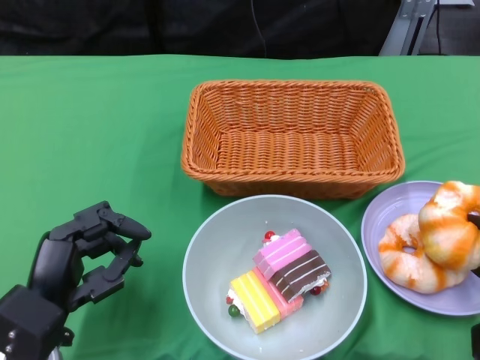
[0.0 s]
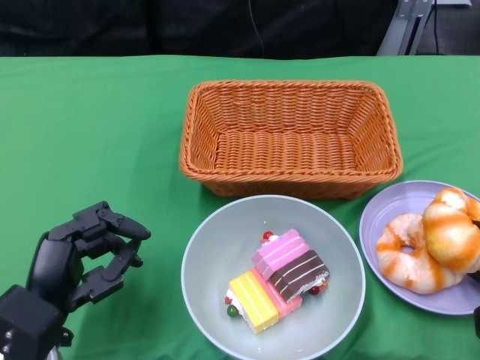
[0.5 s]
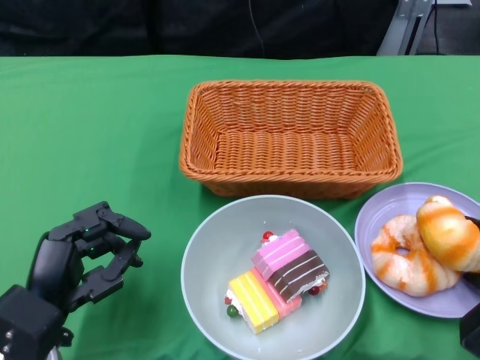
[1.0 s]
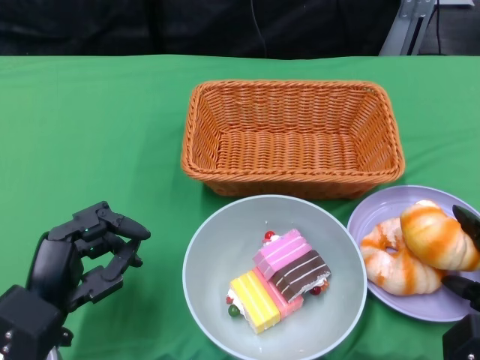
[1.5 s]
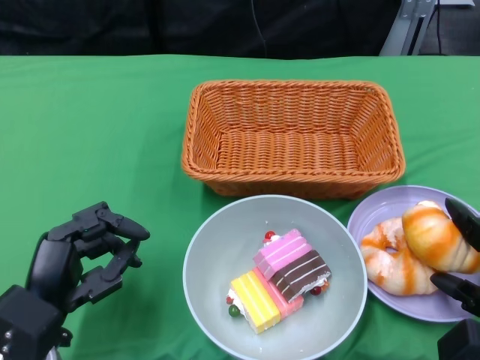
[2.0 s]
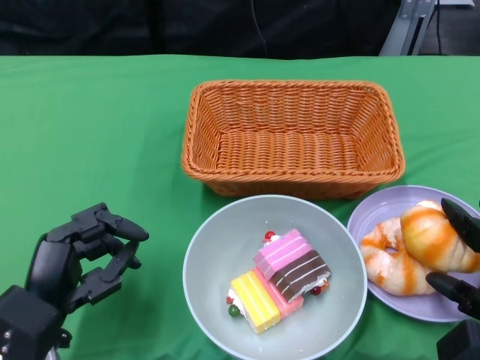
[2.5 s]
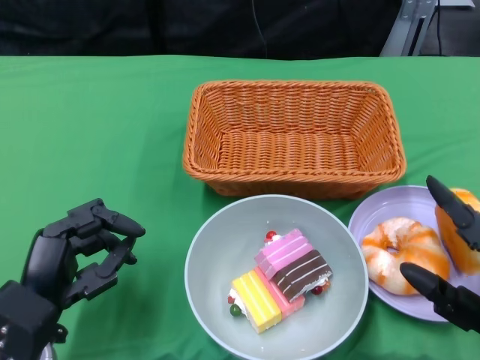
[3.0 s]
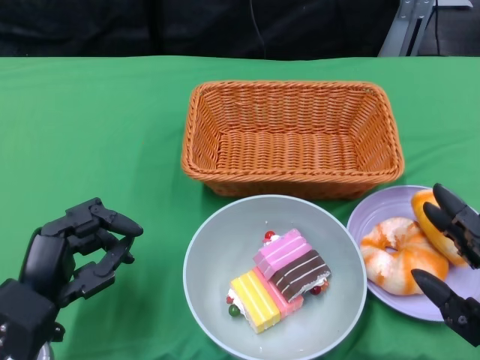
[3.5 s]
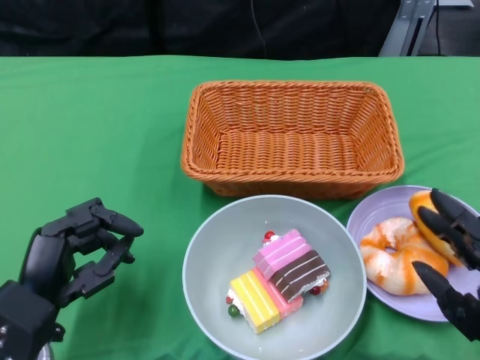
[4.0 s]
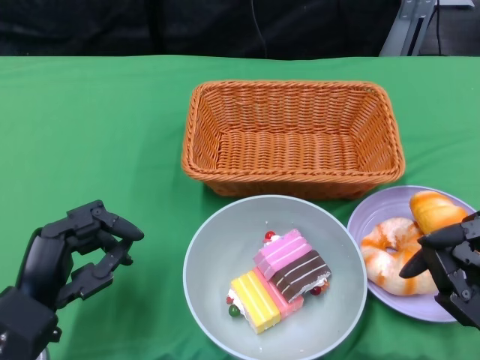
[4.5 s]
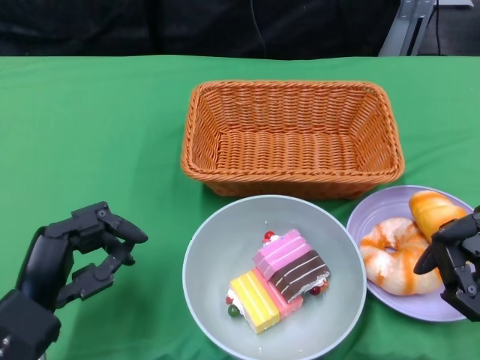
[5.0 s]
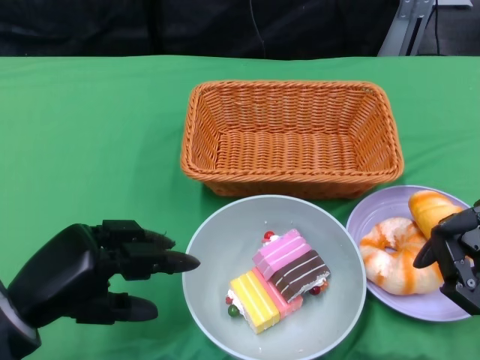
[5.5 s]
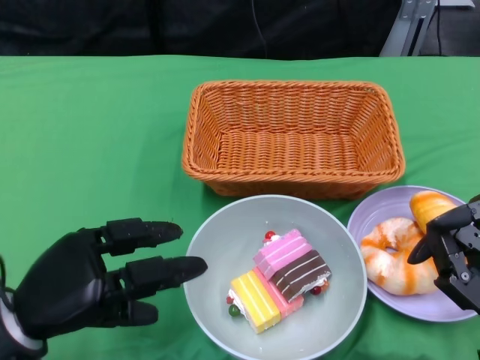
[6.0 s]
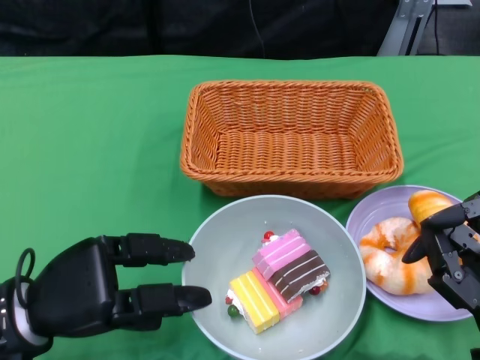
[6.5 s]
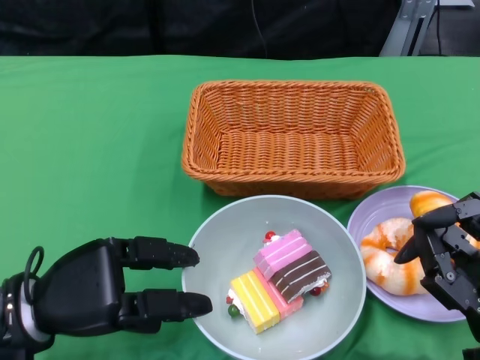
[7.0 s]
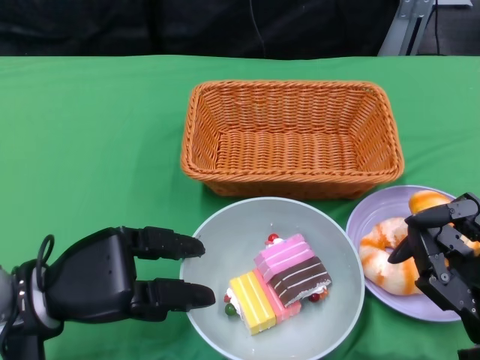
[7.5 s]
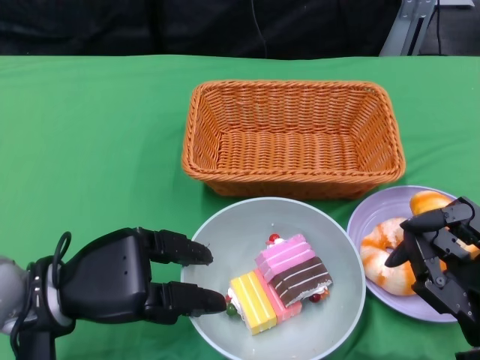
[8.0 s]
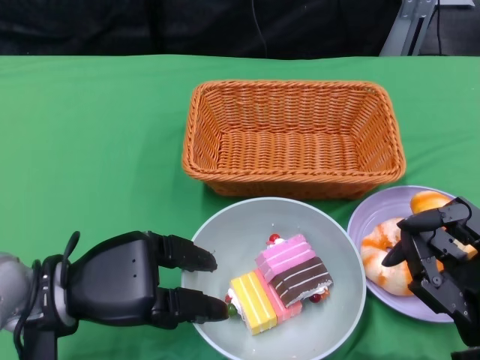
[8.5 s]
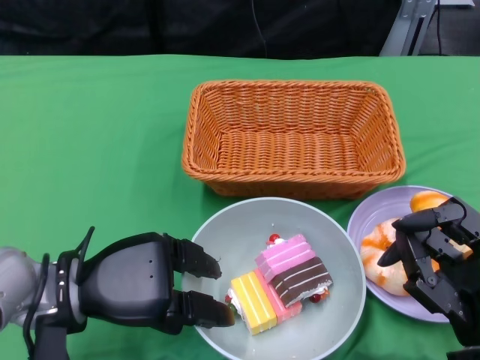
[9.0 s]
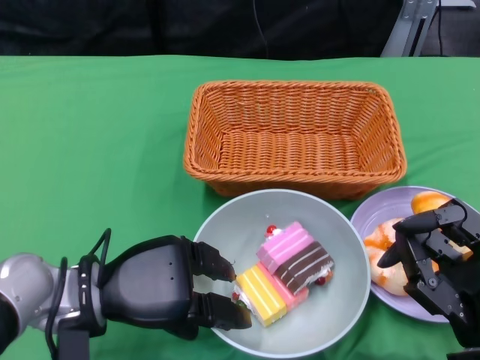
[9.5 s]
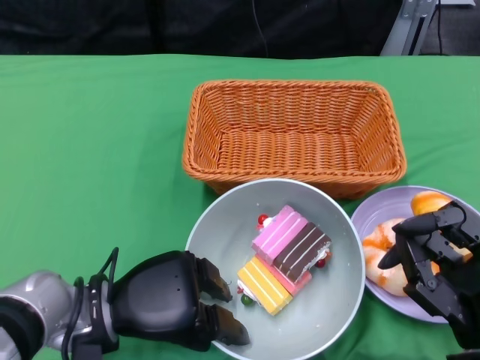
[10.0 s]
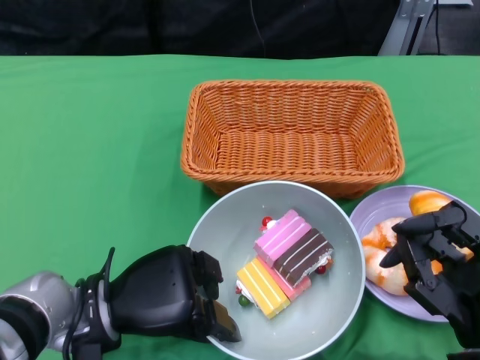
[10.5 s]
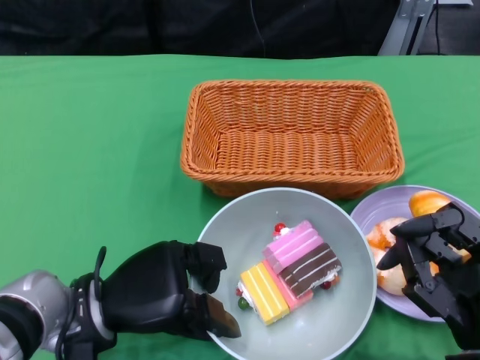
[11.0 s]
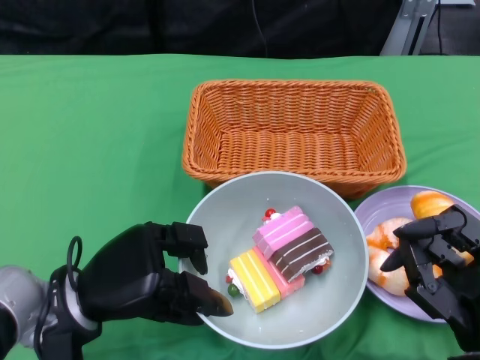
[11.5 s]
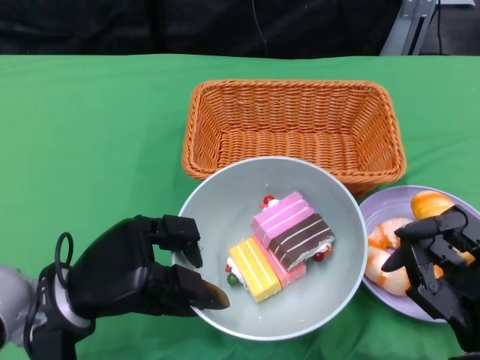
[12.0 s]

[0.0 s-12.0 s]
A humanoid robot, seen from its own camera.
Step, 0.0 to 4.5 s: Pick up the bread with the right gripper and place it on the plate.
Step, 5.0 to 11.5 s: Grasp the bowl with the left gripper.
0.0 to 2.0 s: The hands stay close to where they were, moving slightly.
2.0 to 4.0 s: The right hand changes place by approximately 5 cm.

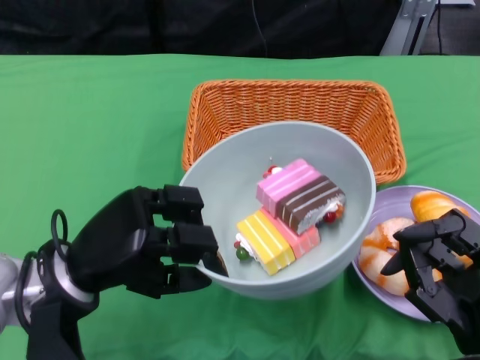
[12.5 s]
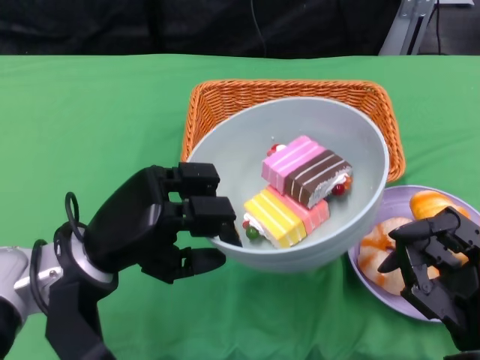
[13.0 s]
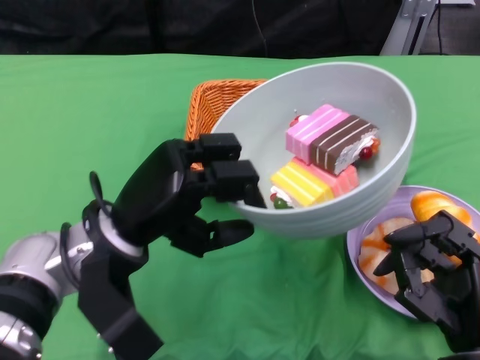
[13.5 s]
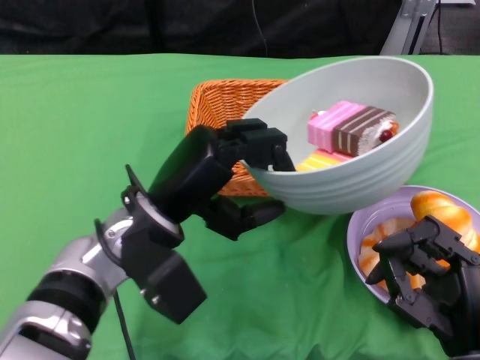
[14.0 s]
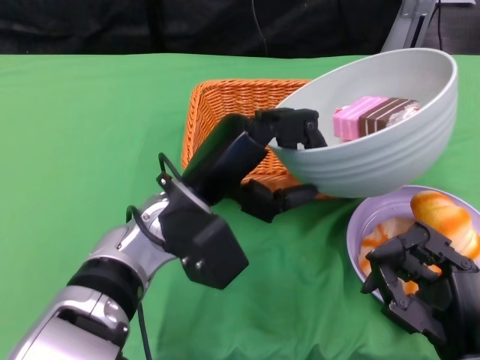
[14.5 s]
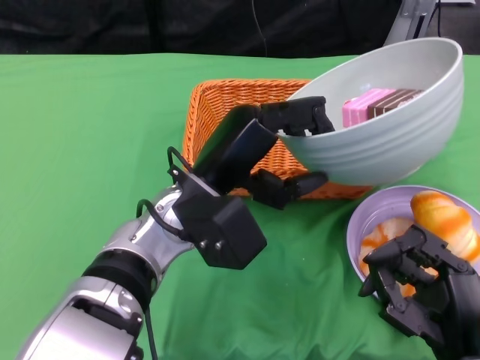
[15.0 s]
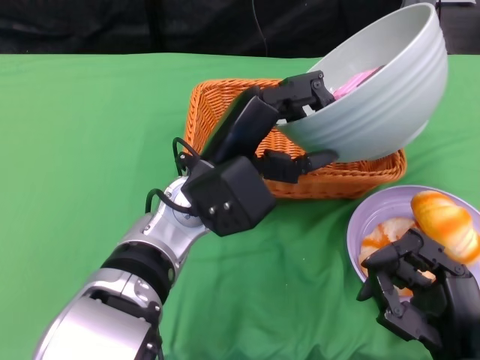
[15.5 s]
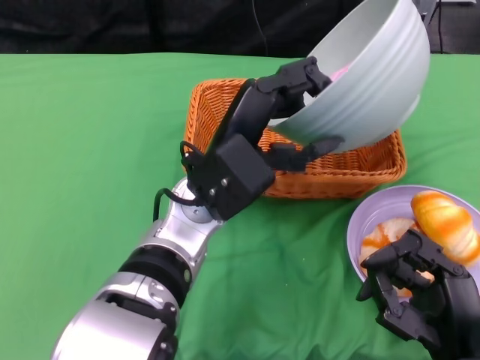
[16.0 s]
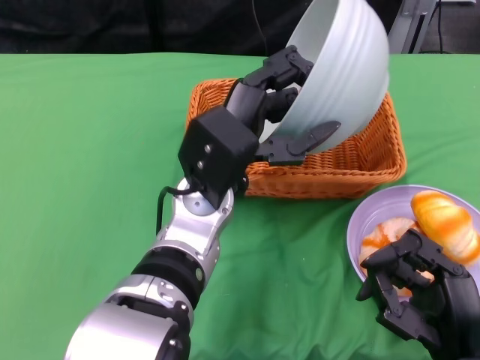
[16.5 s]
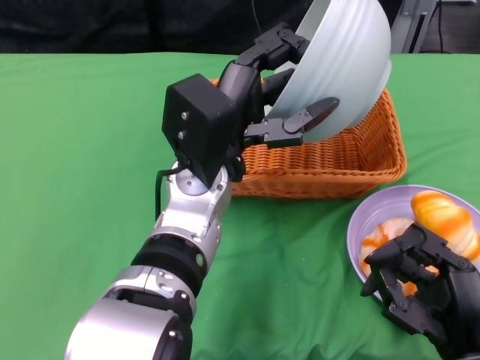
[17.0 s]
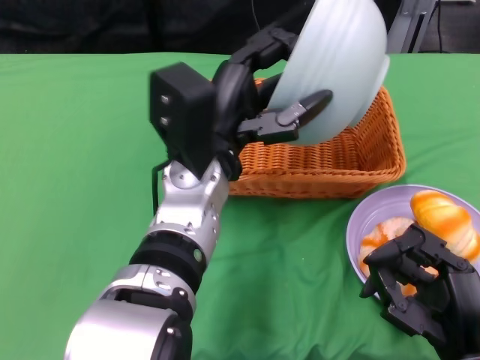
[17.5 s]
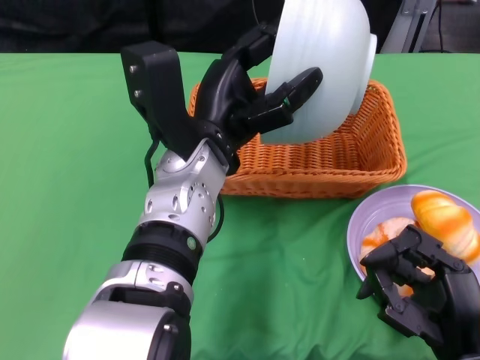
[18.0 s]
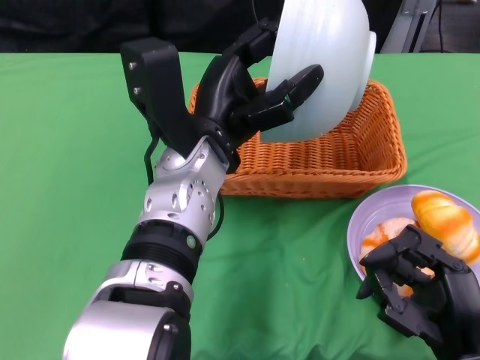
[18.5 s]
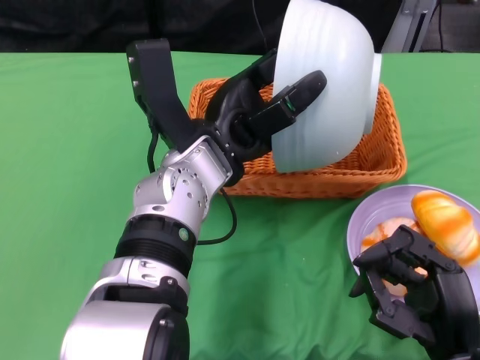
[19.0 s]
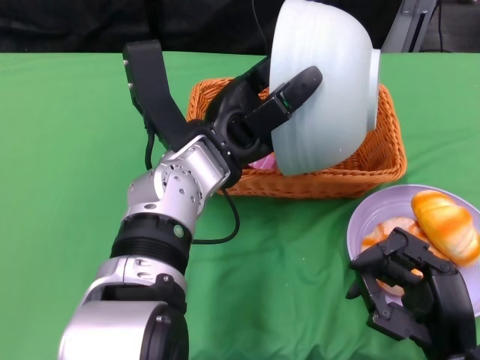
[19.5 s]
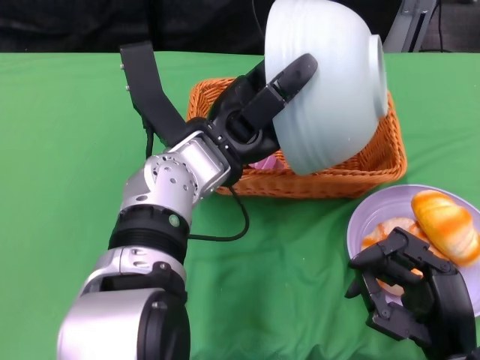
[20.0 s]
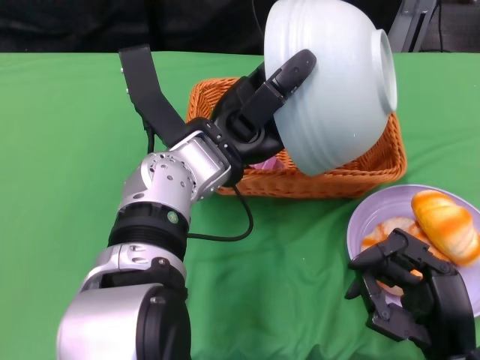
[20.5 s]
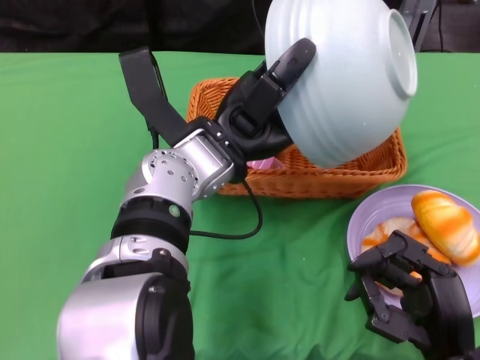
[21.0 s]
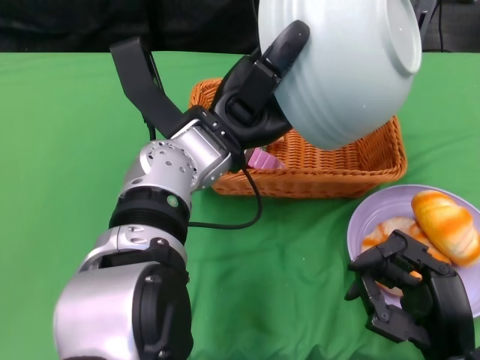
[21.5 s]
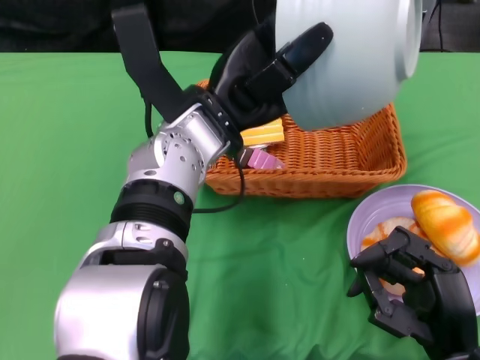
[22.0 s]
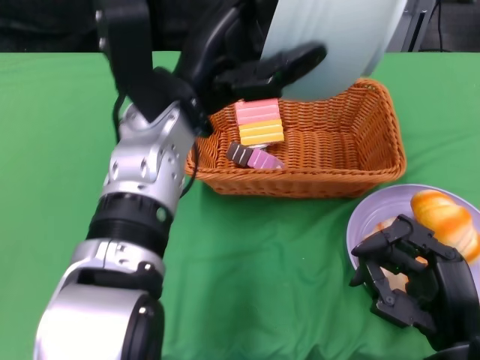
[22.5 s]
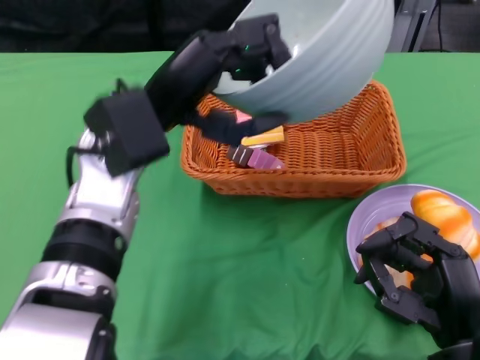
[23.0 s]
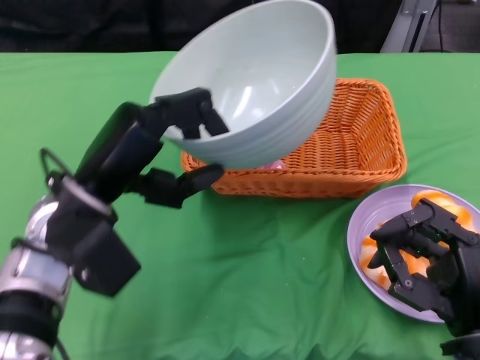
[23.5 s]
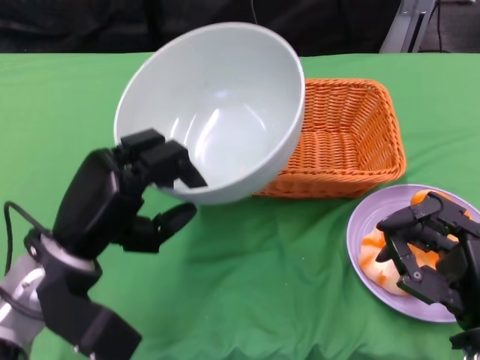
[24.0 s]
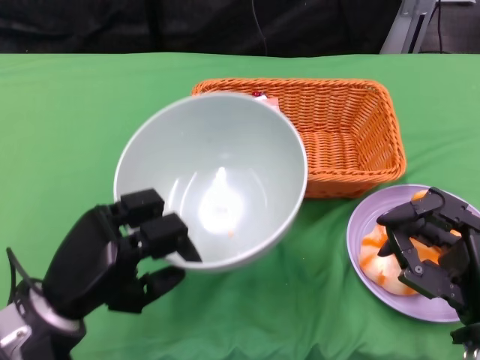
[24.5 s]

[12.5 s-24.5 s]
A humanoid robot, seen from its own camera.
Step, 12.5 to 23.0 s: Pour the cake into the basket with the left gripper.
12.5 to 14.5 s: The left hand moves to the right, some 10 cm.
20.5 to 22.5 s: The left hand ends up roughly 5 cm from where it was.
22.5 to 24.5 s: The left hand moves downward, to the left and backward, approximately 20 cm.

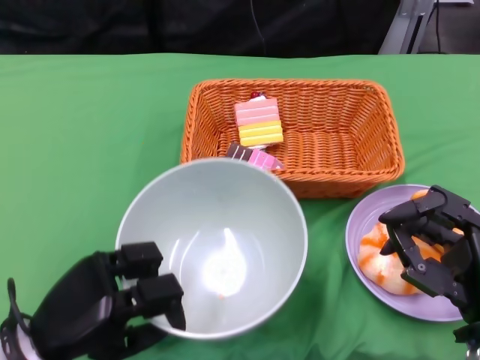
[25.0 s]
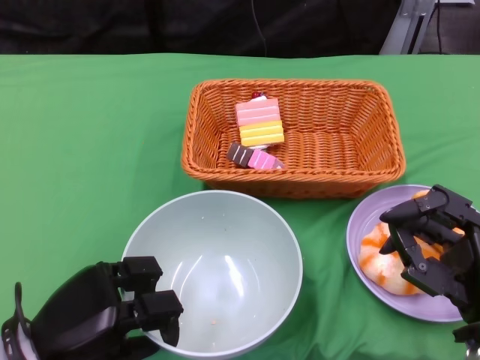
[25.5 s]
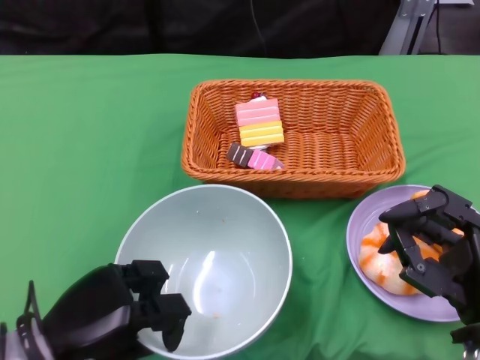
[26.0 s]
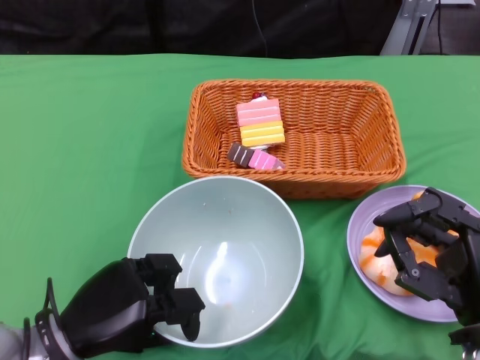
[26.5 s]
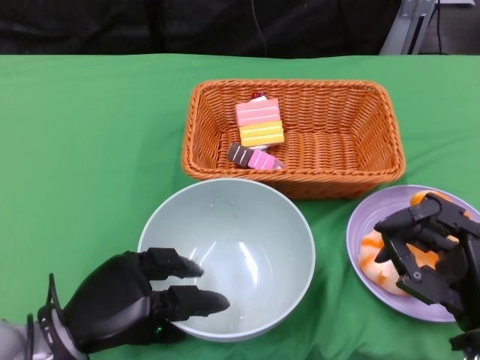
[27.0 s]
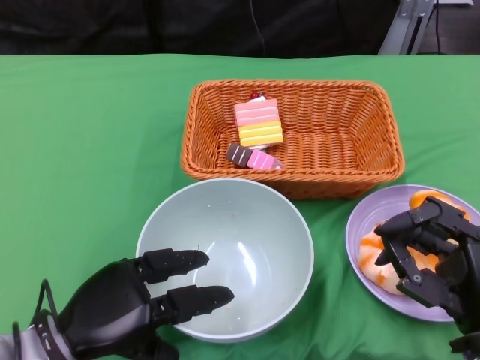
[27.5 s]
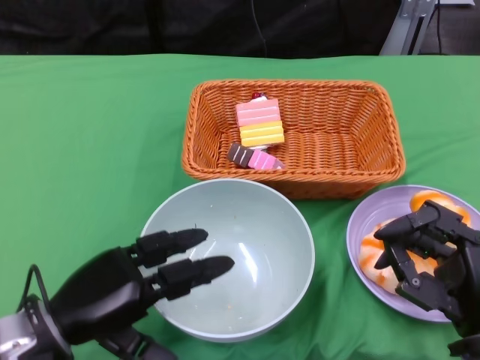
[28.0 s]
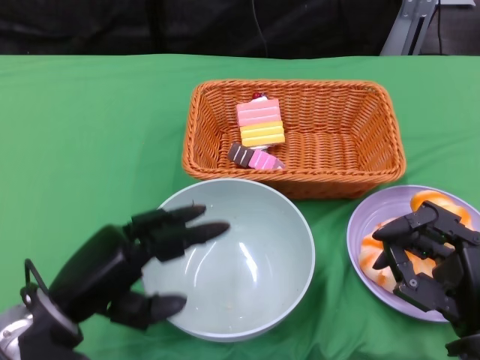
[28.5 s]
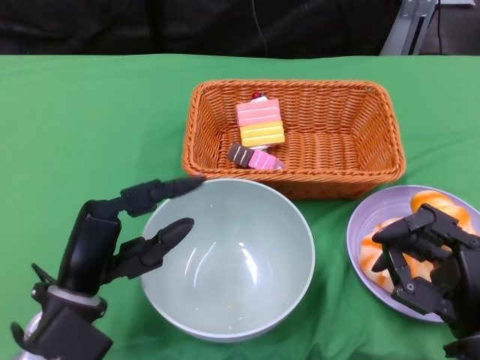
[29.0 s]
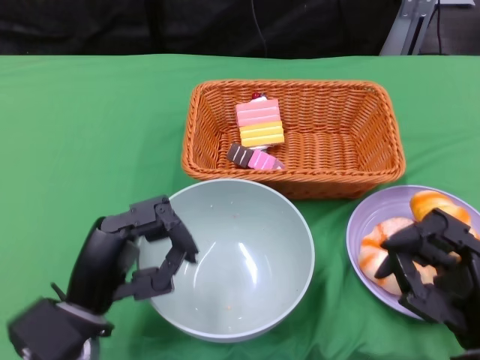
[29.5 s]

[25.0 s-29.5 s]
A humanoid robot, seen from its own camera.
Step, 25.0 to 28.0 s: Place the bowl on the table with the left gripper.
25.0 to 27.0 s: There are only small adjustments of the hands.
